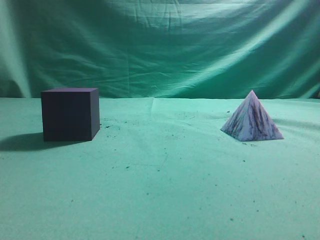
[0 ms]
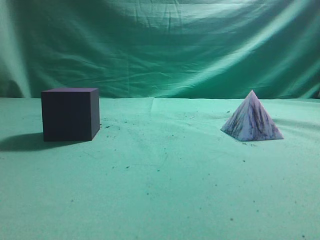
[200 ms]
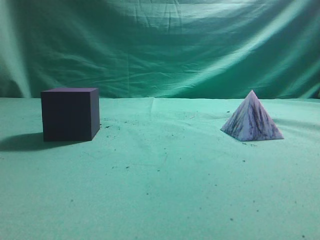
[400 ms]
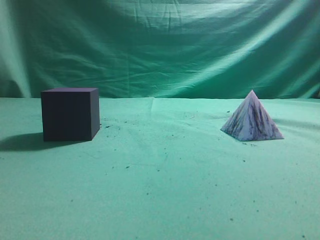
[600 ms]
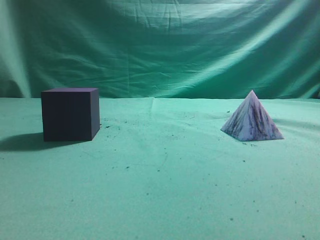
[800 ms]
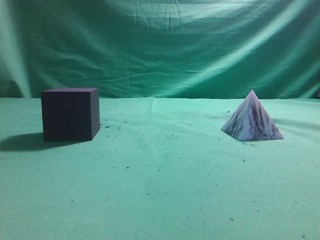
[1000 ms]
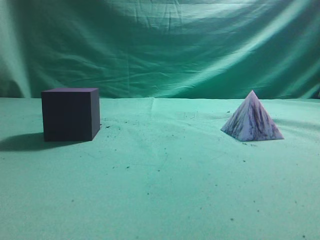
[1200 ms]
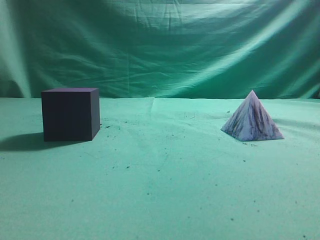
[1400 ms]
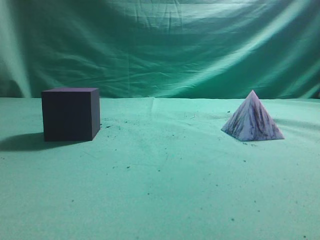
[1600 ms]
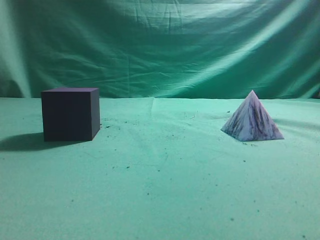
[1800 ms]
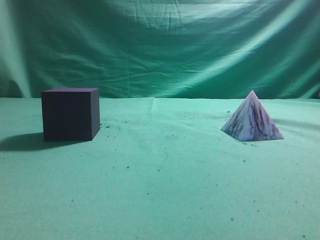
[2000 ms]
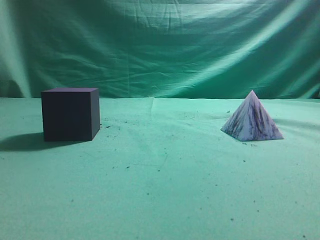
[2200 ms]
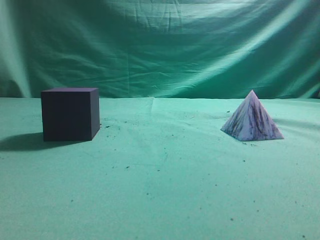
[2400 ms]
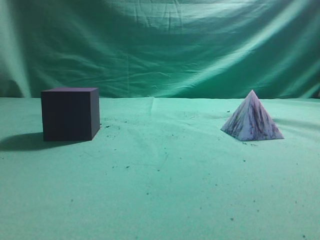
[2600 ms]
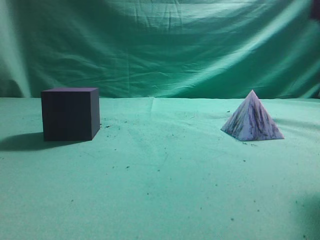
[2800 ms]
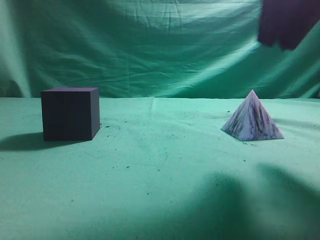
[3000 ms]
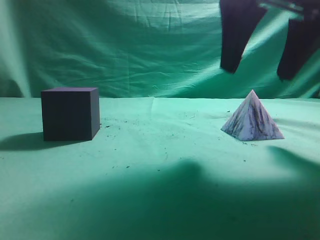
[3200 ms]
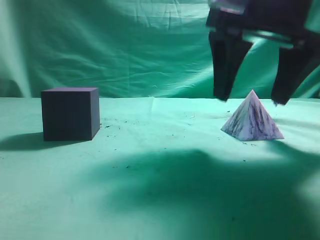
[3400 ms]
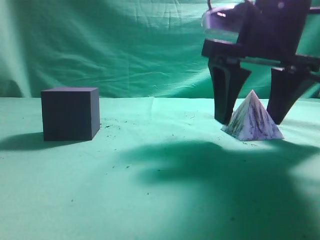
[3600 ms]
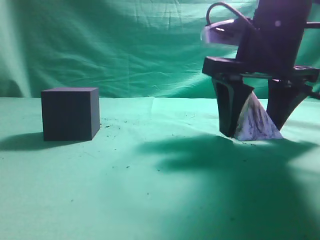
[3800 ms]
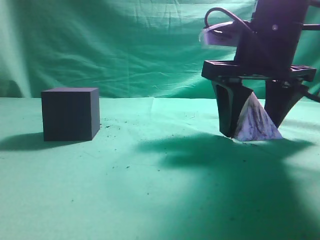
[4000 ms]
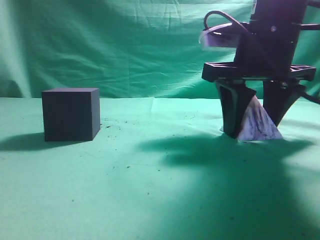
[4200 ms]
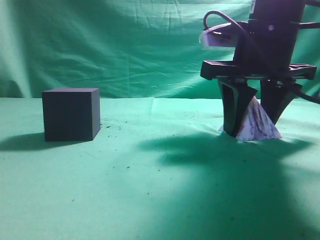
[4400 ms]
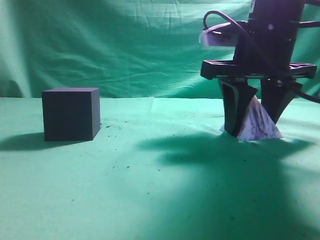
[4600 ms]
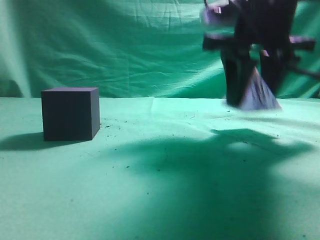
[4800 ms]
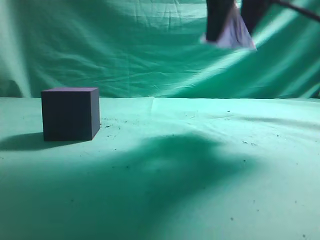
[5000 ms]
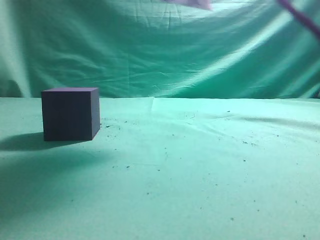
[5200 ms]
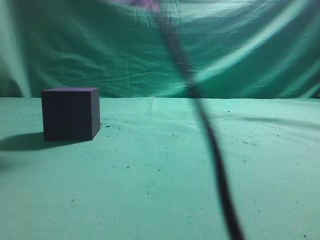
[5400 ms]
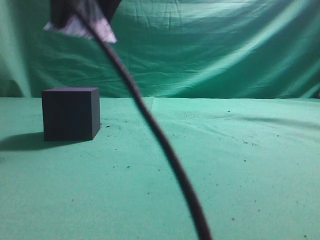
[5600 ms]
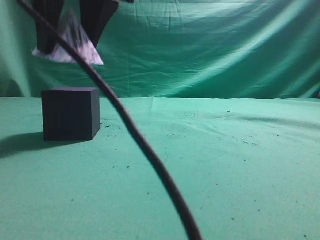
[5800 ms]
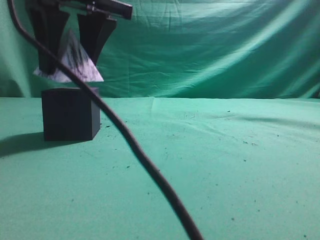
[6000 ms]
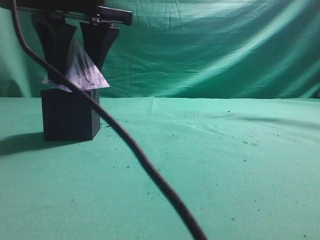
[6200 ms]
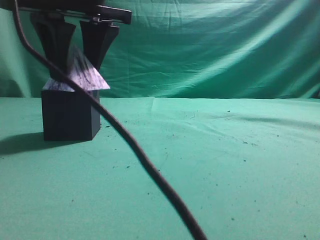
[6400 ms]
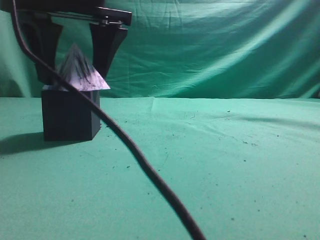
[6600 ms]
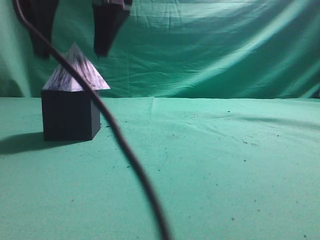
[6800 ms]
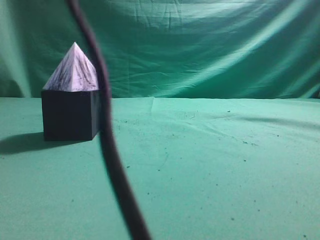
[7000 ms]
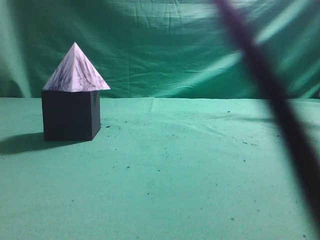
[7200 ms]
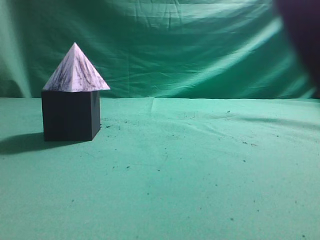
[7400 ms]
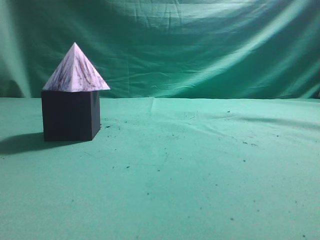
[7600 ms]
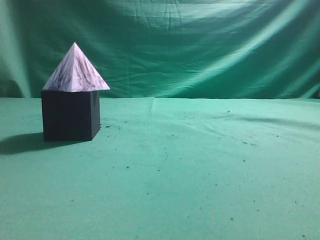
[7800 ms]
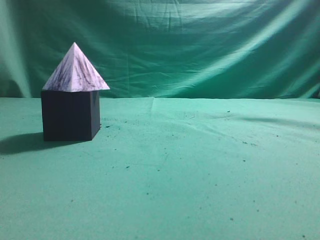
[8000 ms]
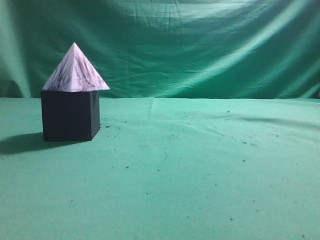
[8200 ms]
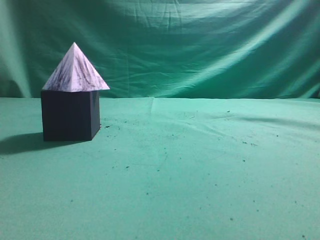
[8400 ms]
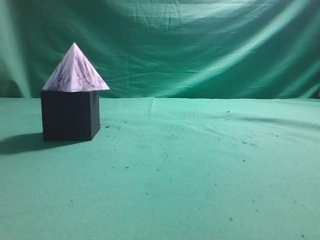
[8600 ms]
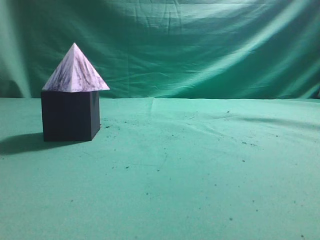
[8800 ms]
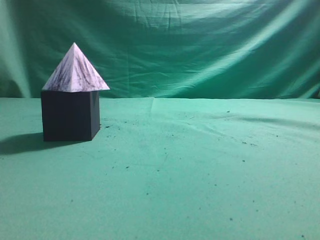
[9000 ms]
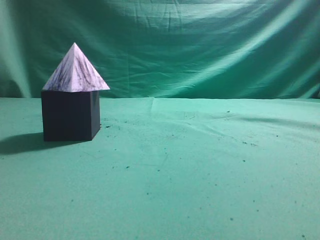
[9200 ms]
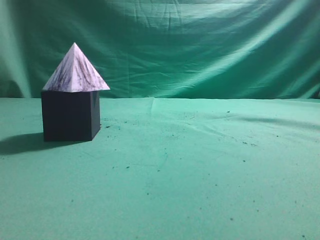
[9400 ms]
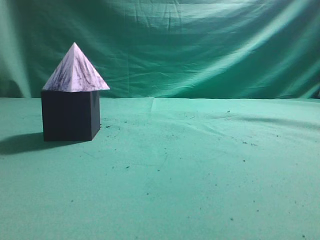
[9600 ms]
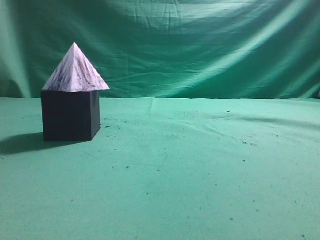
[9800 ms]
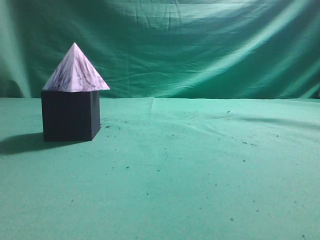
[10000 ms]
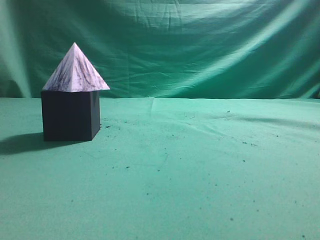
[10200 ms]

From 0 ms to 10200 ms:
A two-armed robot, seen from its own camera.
Task of the whole recording: pick up the square pyramid from the table and place it on the cube block.
Step, from 0 ms to 4800 ms: Grasp the triangular block.
Step, from 5000 ms to 6800 ms: Place the block onto the cube-shaped block.
From 1400 ms to 3000 ms: The right gripper heads forward, to the left and upward, covering roughly 25 cm.
From 3000 ms to 4400 ms: The right gripper heads downward and forward, covering roughly 15 cm, and opens, then closes once more.
From 4400 ms to 5800 ms: The right gripper moves to the left and upward, some 25 cm.
From 5800 ms to 7200 ms: The right gripper heads upward, covering some 15 cm, and closes its fingers.
From 7200 ms to 8800 ms: The right gripper moves to the right and backward, about 35 cm.
